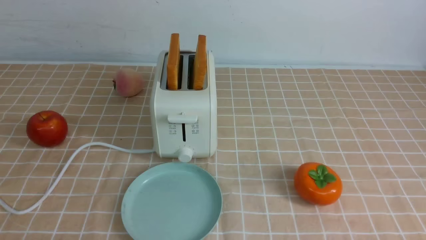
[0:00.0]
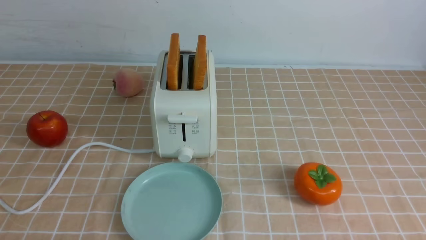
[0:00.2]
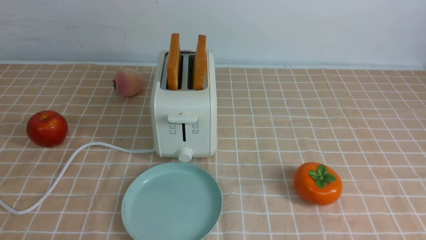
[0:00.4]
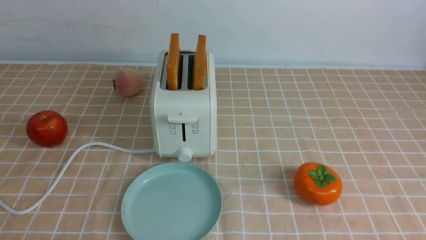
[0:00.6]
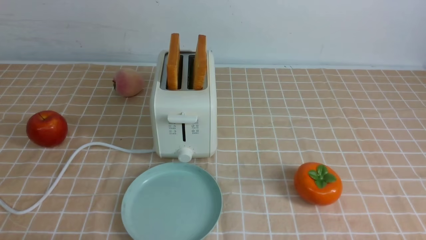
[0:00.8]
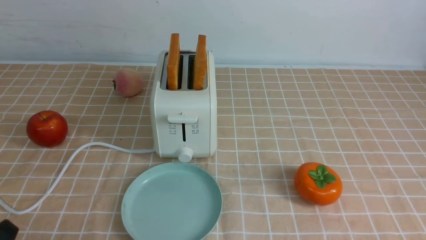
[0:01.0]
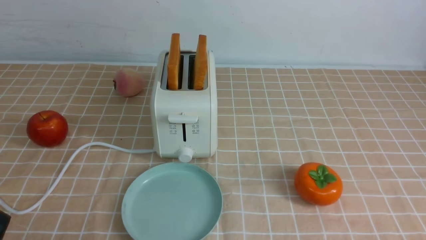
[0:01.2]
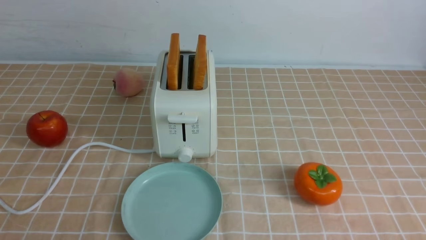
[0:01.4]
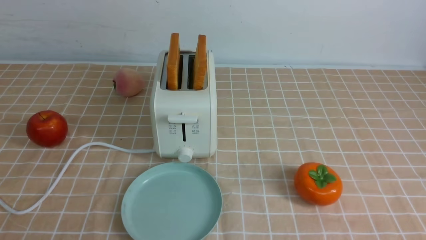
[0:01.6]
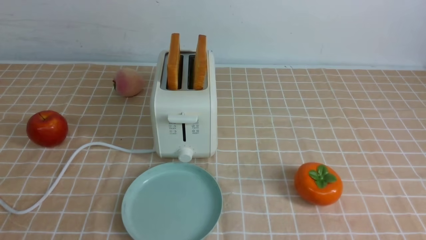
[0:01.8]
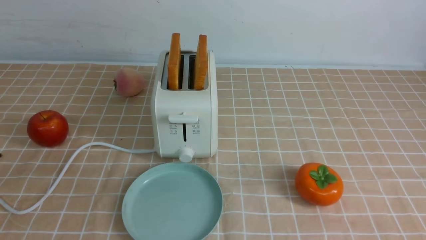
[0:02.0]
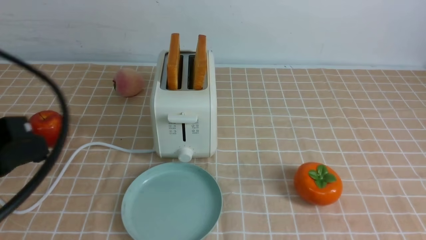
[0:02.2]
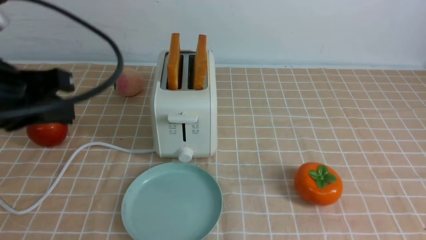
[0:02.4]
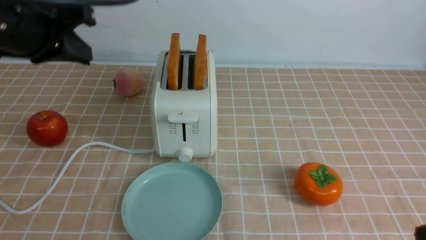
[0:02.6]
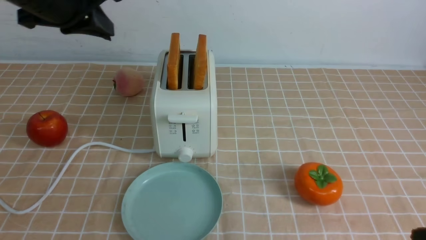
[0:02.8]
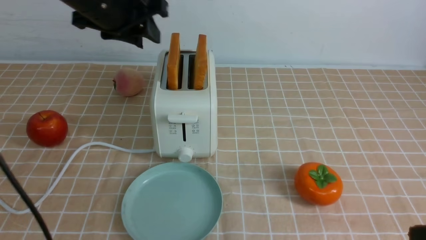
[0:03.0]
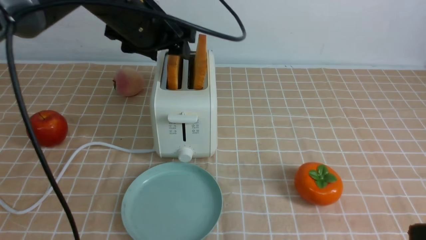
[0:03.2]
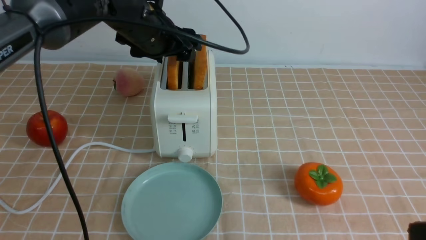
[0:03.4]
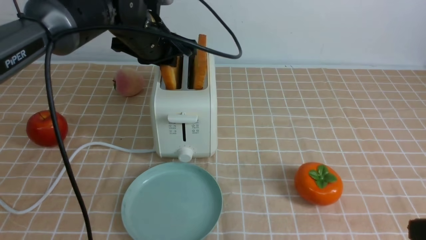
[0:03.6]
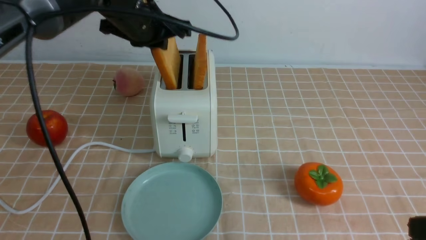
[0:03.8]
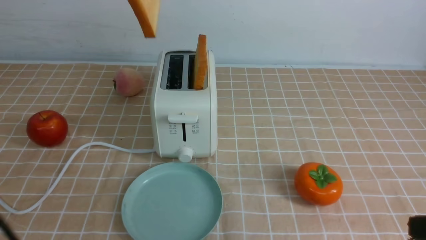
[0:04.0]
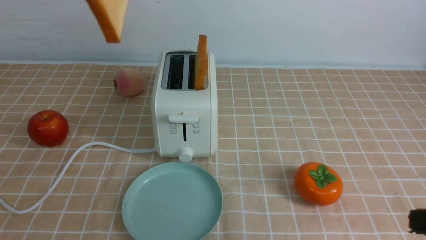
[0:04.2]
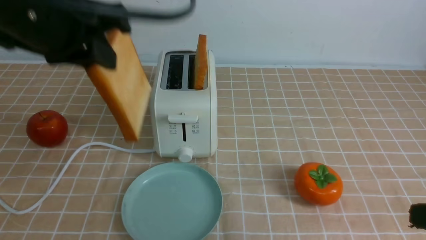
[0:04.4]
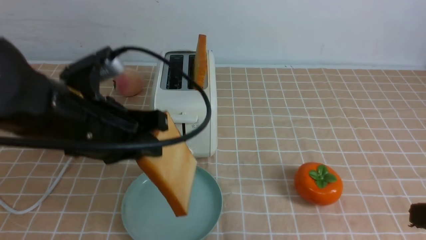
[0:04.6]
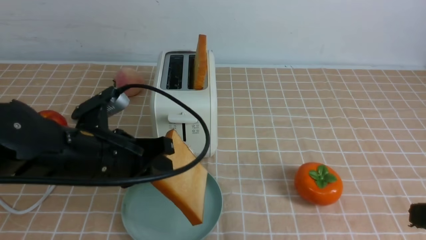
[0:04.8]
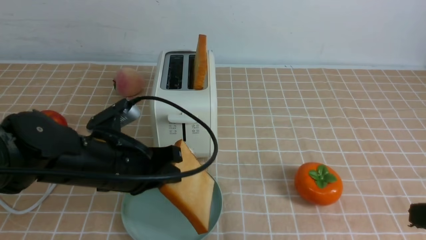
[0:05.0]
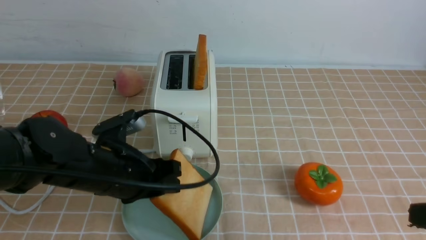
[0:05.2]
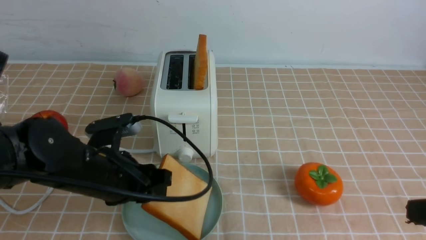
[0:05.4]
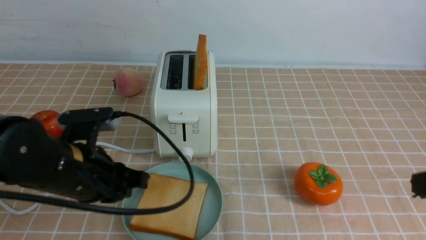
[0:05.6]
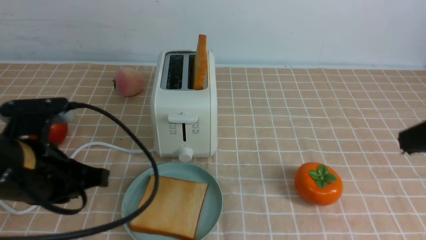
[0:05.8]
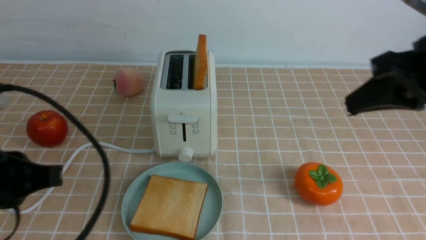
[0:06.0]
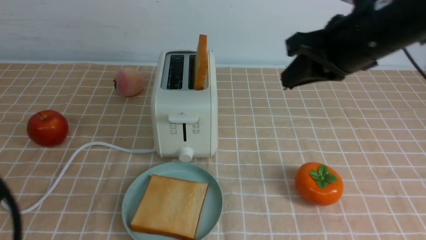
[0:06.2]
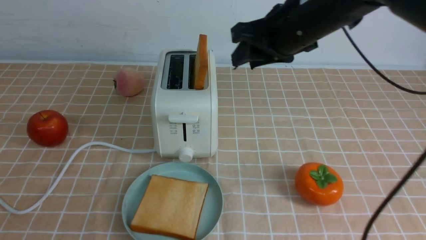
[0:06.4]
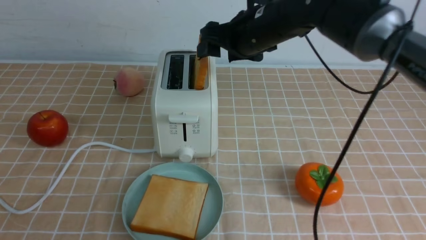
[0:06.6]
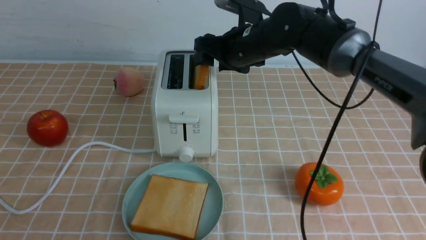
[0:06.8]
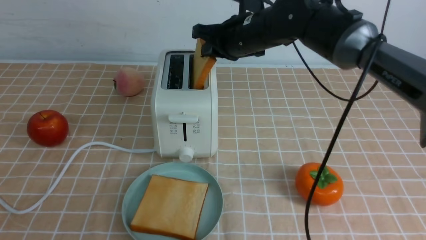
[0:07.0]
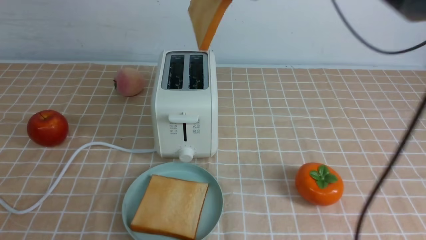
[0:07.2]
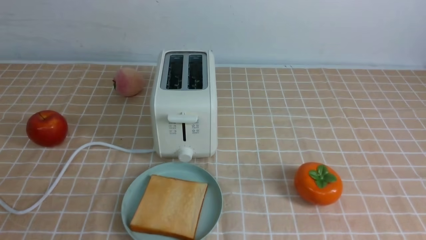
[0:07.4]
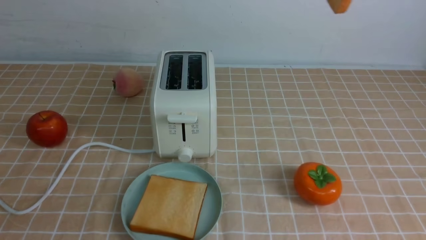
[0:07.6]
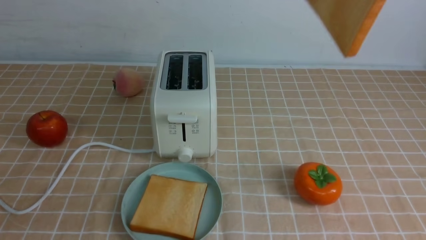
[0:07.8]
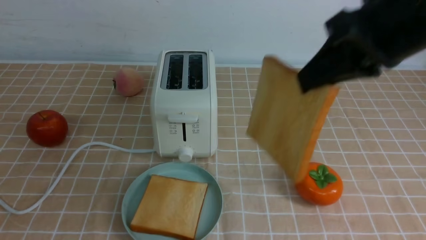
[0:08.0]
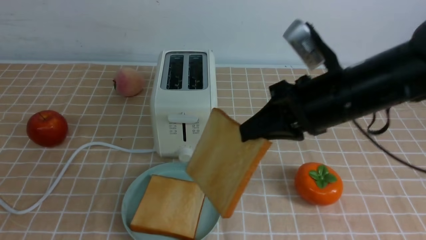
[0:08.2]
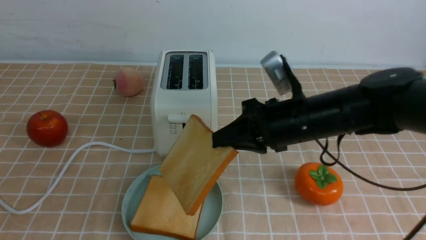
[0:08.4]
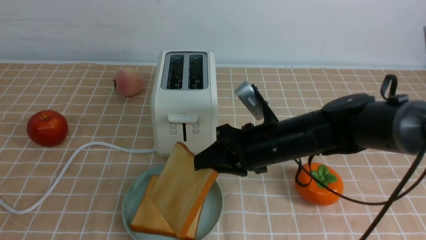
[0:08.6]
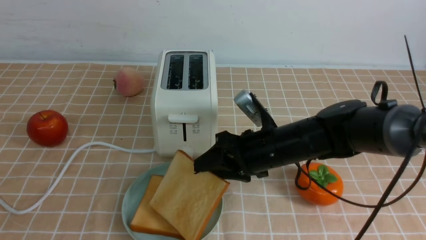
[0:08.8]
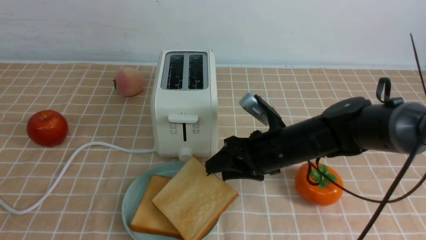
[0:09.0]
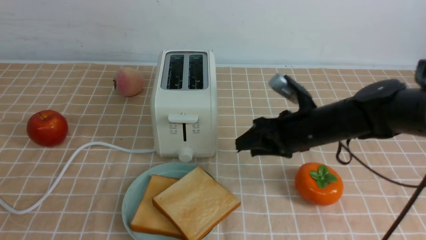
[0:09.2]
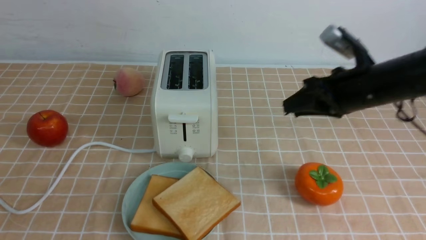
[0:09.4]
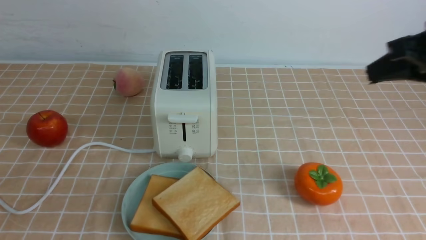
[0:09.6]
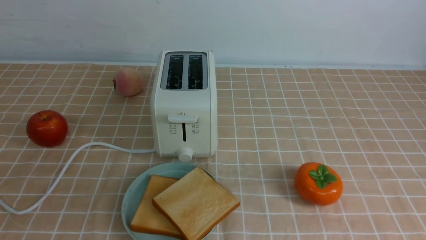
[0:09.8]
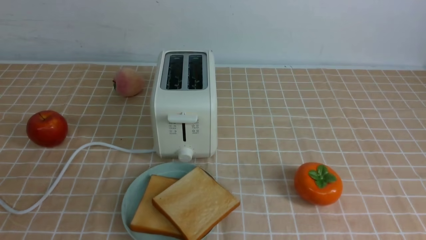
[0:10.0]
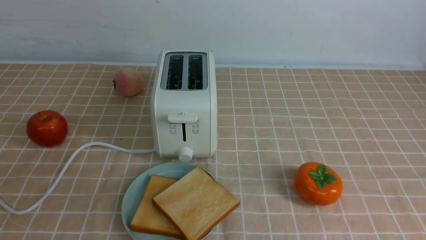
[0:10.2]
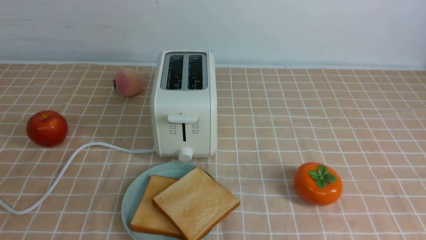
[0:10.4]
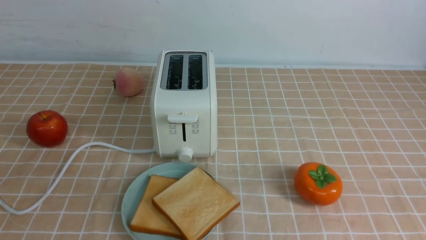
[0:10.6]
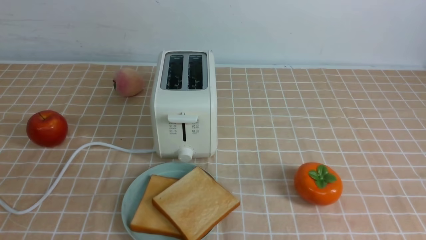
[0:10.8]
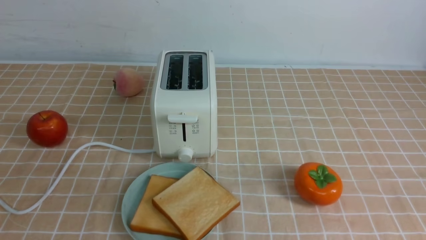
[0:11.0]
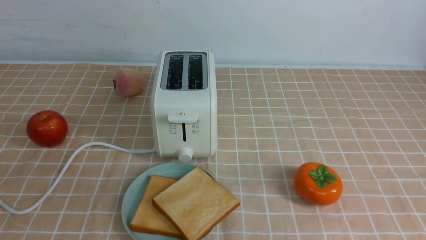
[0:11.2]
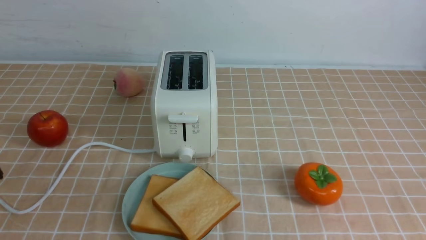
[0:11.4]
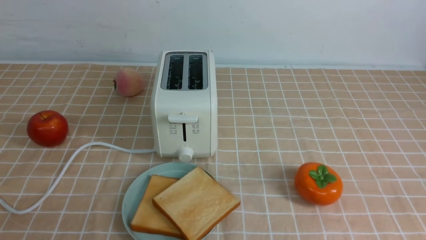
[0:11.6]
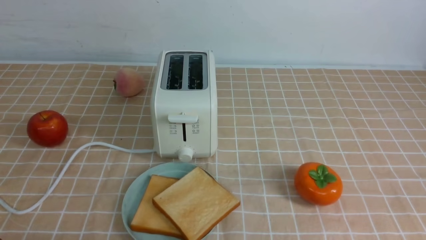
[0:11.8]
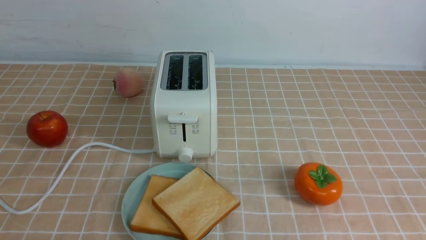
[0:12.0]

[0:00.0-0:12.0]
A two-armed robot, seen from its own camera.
Task of the whole recording: take toasted bread from bread machine on light coffee tablecloth place on plate.
Step, 0:00.0 to 0:03.8: use the left arm to take out a slice of bread.
Step, 0:04.0 to 0:05.6: use the left arm to put a slice of bread into the empty plate.
Step, 0:05.8 to 0:07.0: use the right arm to take out a slice of bread.
Step, 0:07.2 to 0:09.0: use the right arm to put a slice of bread into the plate.
0:01.6 to 0:03.0: The right gripper travels upward by about 10 cm, and closes. Meanwhile the left gripper shifts some 35 cm forward and upward, and opens.
0:03.0 to 0:04.4: The left gripper shifts some 10 cm backward, and closes.
0:04.4 to 0:06.0: The left gripper travels backward, downward and to the left by some 15 cm, and opens, then closes once more, while the right gripper heads forward and upward, covering about 15 cm.
0:06.0 to 0:07.6: The right gripper heads upward, covering about 15 cm, and opens, then closes once more. The left gripper shifts roughly 10 cm backward.
0:07.6 to 0:09.0: The right gripper shifts about 35 cm downward, and opens.
0:09.0 to 0:10.4: The right gripper goes about 35 cm backward and to the right, and closes up.

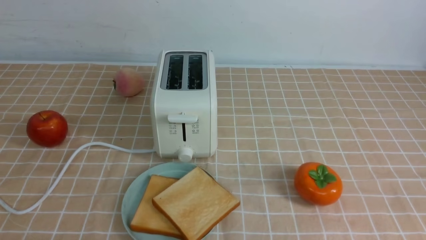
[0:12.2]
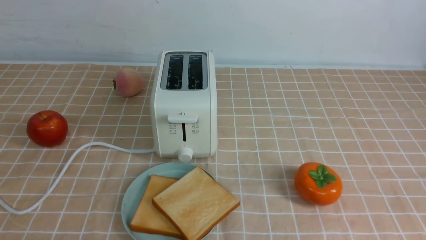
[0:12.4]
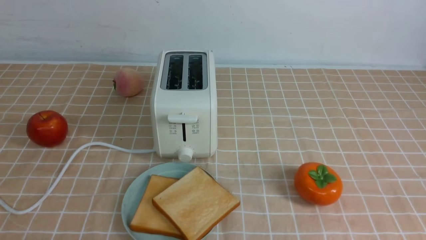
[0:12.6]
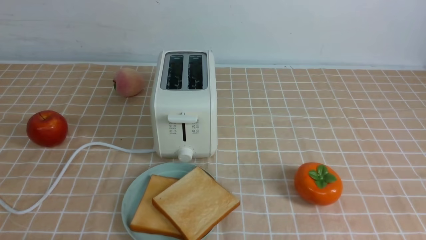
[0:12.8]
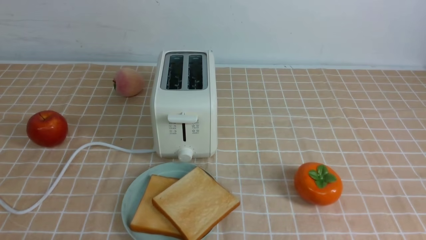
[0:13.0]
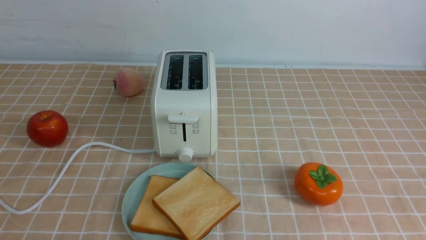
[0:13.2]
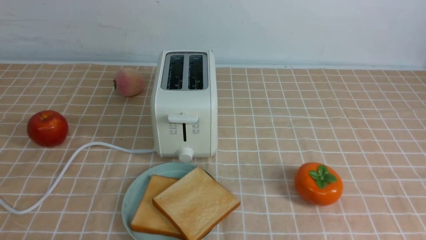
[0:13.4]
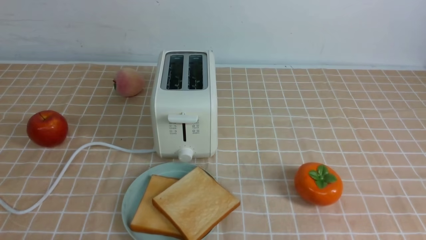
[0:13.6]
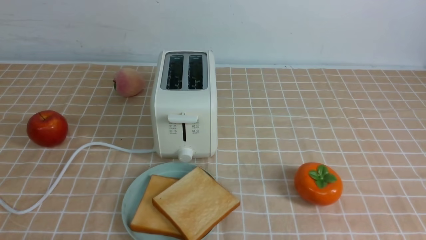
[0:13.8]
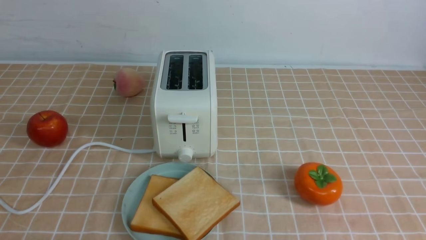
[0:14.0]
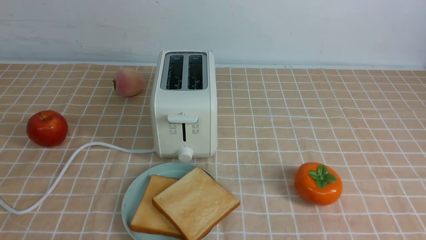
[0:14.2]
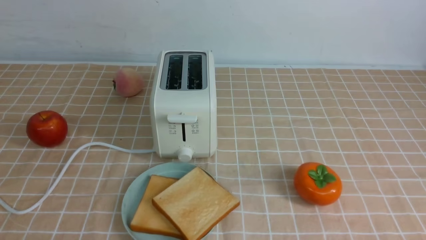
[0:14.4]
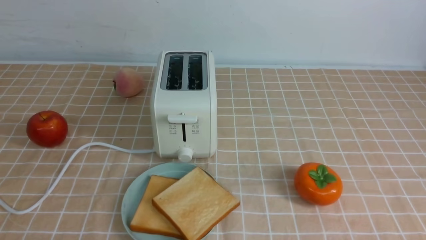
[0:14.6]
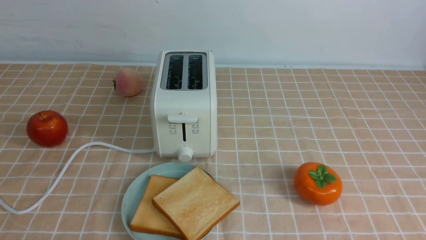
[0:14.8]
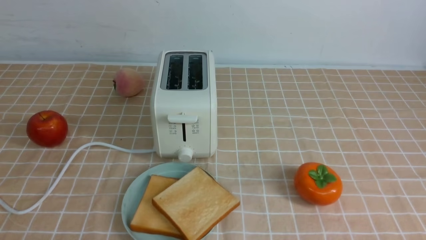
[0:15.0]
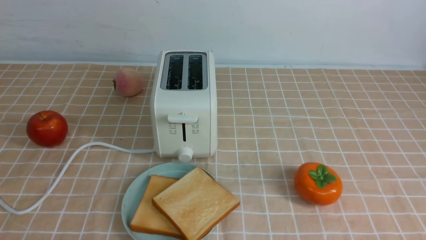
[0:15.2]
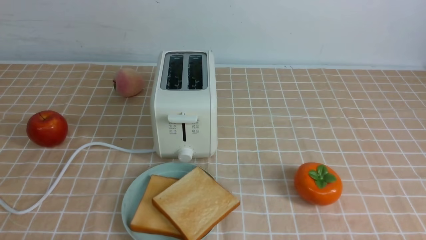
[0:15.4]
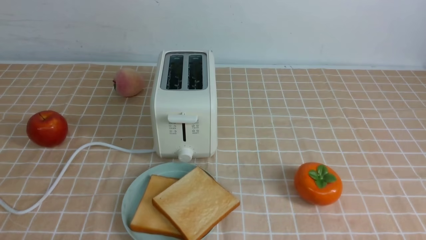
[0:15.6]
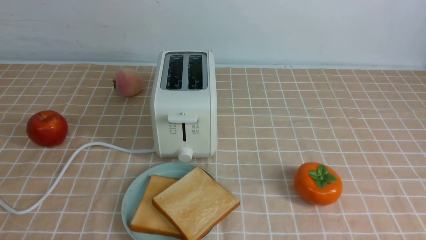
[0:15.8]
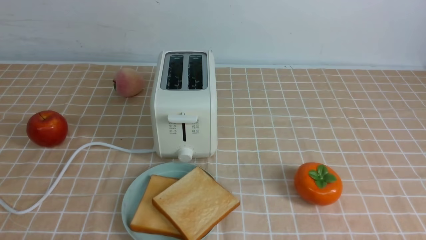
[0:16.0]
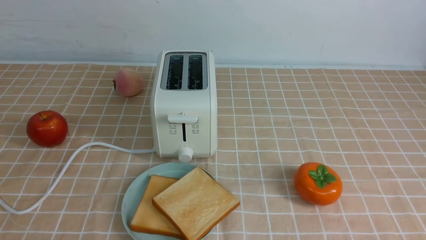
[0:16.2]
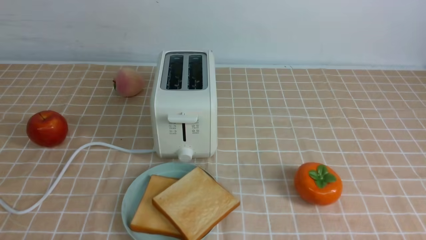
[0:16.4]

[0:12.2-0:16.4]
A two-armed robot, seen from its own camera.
Task of the whole recording: take toasted bread from bread machine on light coffee tablecloth place on plate.
0:15.0 to 0:16.4: Neither gripper changes place.
